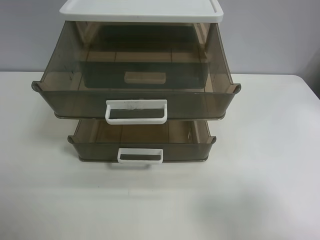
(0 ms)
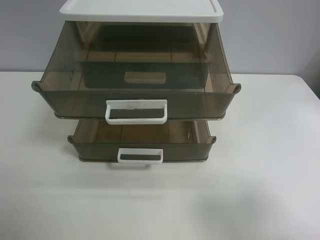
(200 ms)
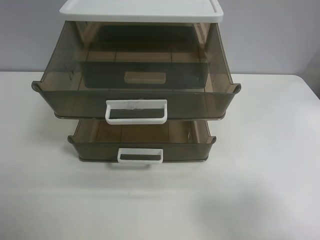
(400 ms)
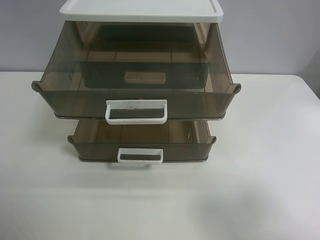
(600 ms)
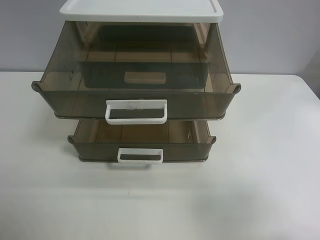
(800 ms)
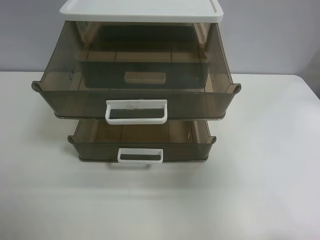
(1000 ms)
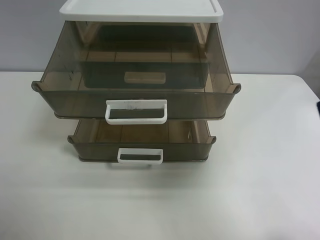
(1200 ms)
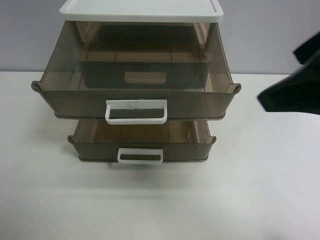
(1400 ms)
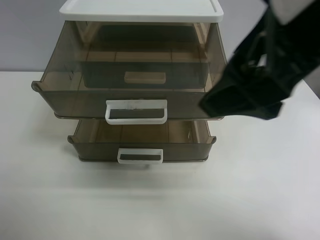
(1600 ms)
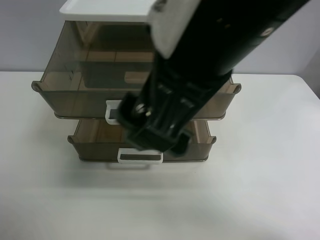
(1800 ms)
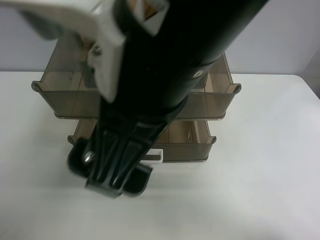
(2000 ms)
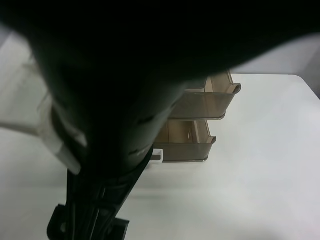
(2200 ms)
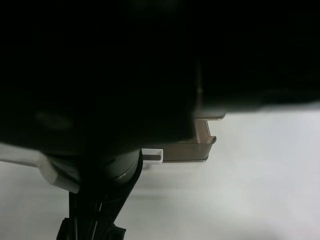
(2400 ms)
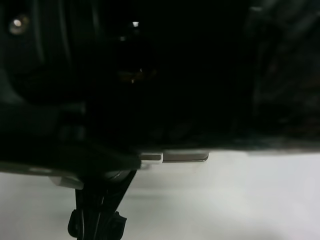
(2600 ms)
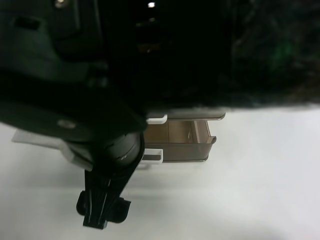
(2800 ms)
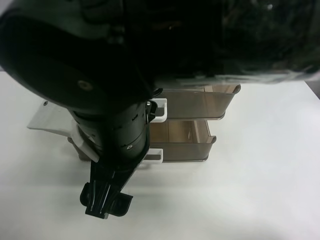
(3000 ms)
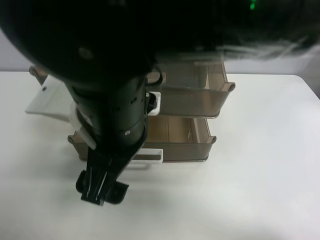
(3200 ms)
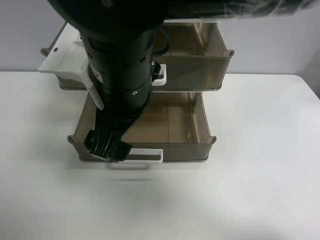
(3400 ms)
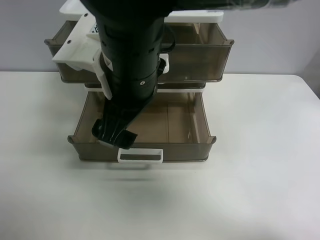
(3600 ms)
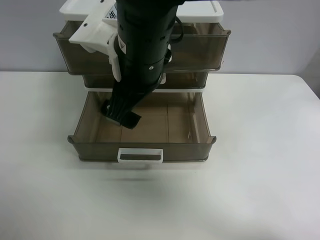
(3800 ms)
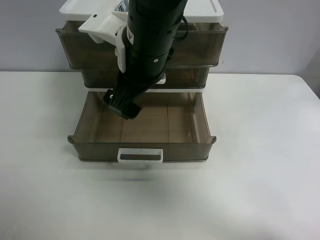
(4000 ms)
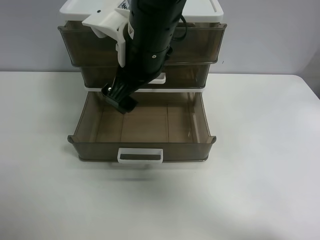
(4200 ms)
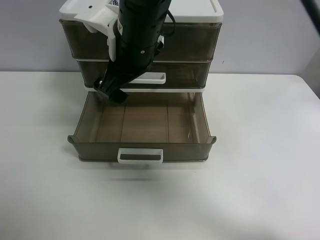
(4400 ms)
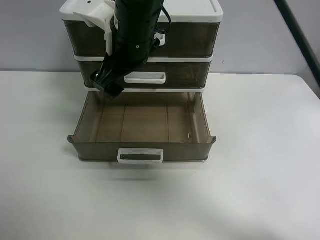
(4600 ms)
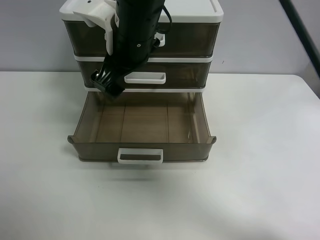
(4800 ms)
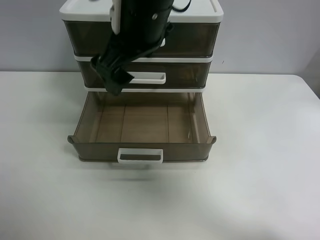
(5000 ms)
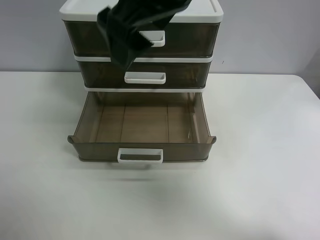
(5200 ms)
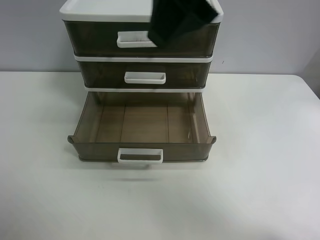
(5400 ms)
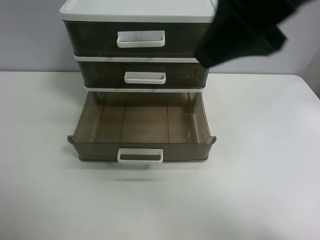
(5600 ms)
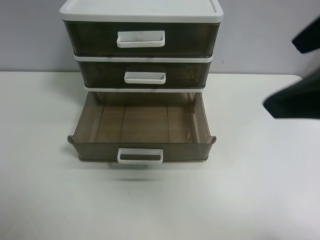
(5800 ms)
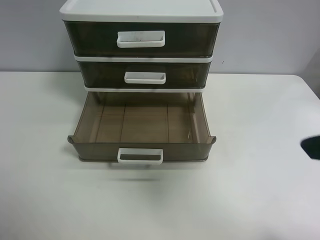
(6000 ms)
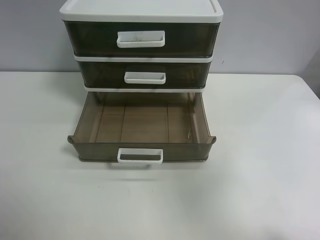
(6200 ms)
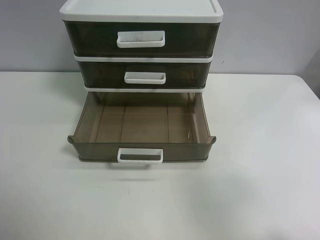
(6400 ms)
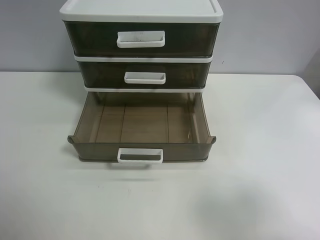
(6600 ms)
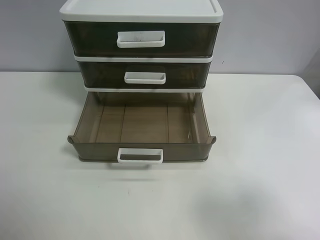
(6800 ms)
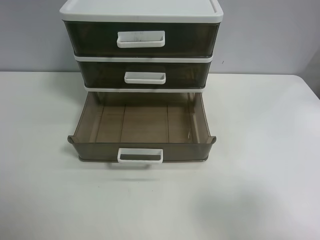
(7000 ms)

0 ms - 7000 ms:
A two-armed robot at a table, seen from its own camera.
Task of the whole recording: close the top drawer.
Step, 0 ms - 3000 ms: Use the right gripper to touch the topmost layer of the storage cabinet.
Step, 3200 ms - 4800 ms: Push the top drawer closed.
0 ms - 1400 ms: The right gripper is displaced forward, to the left and upward by some 20 cm.
1400 ms - 2800 ms: The right gripper goes approximately 25 cm to the left and downward.
2800 ms - 4200 ms: The right gripper shifts about 15 cm forward.
4200 ms - 5600 ms: The right gripper is displaced to the right, upward and backward by some 25 cm.
5600 ms - 7000 ms: The right gripper travels to the right, backward and downward by about 25 cm.
